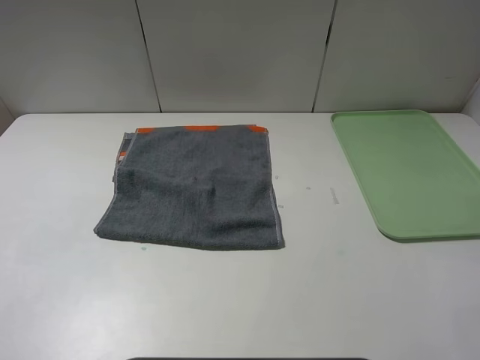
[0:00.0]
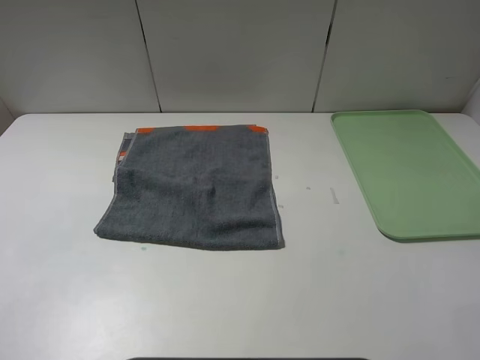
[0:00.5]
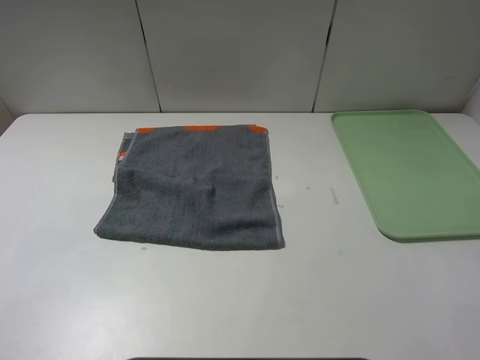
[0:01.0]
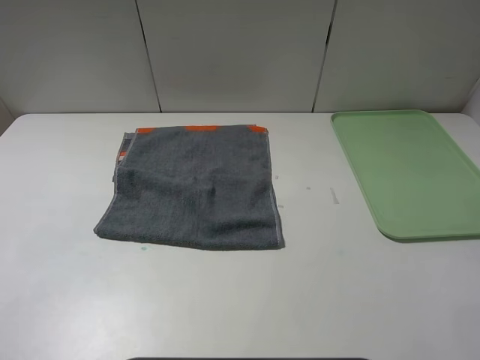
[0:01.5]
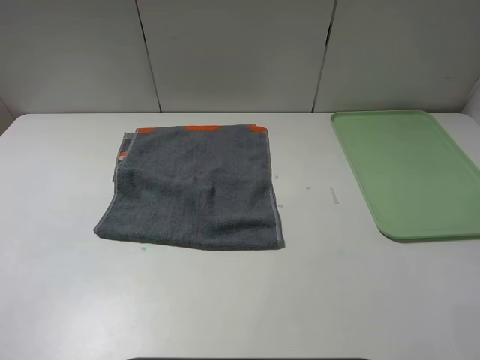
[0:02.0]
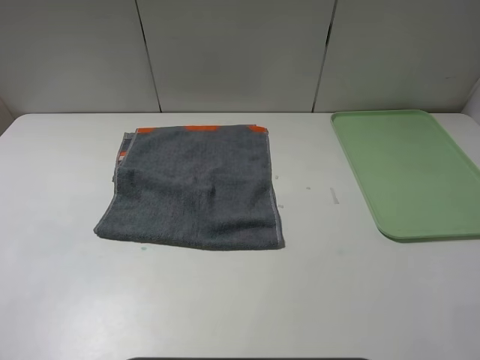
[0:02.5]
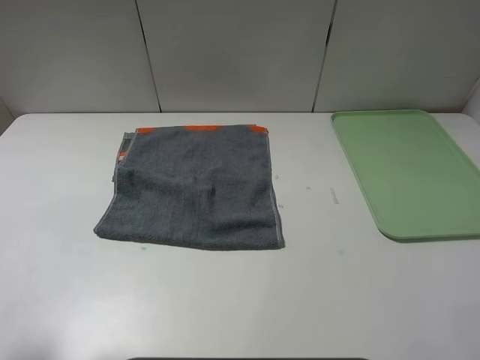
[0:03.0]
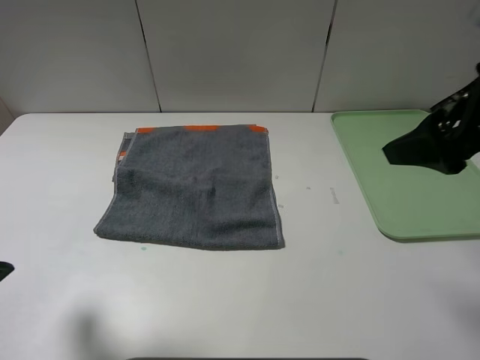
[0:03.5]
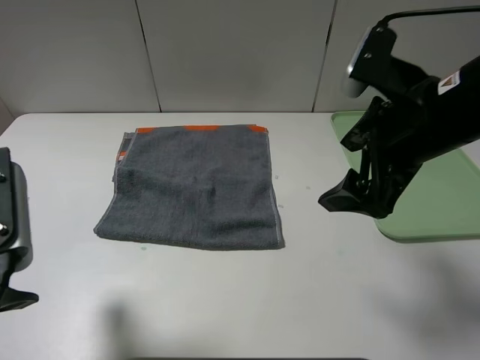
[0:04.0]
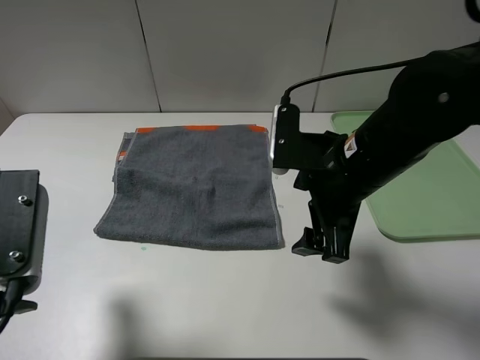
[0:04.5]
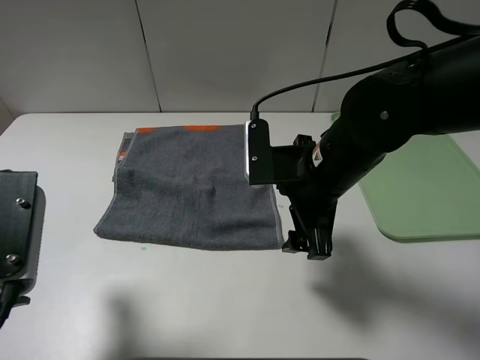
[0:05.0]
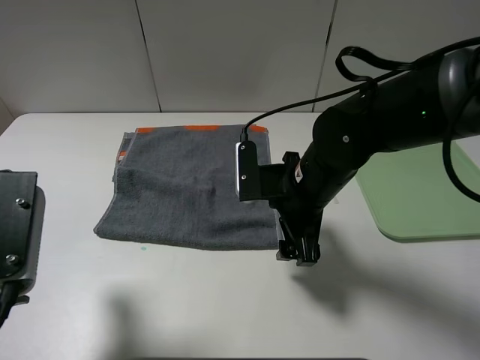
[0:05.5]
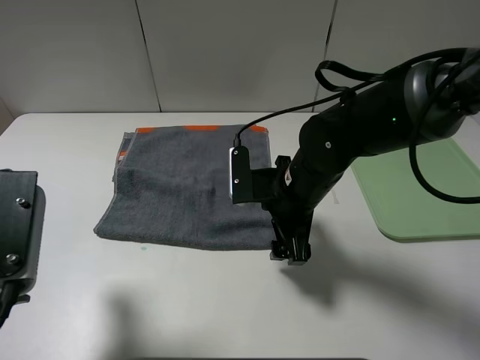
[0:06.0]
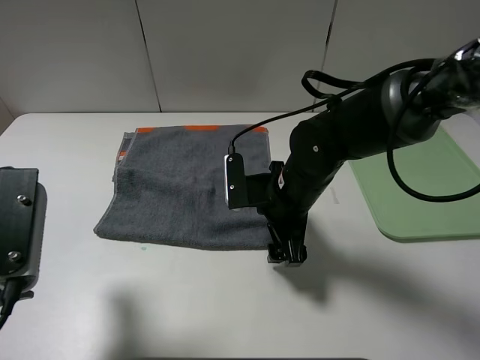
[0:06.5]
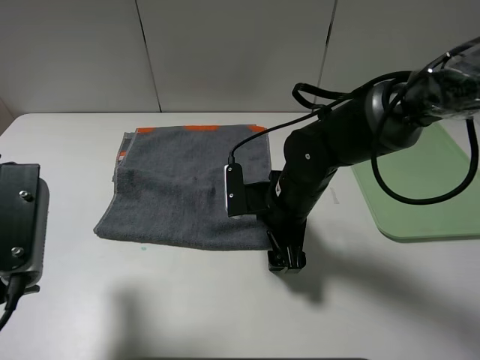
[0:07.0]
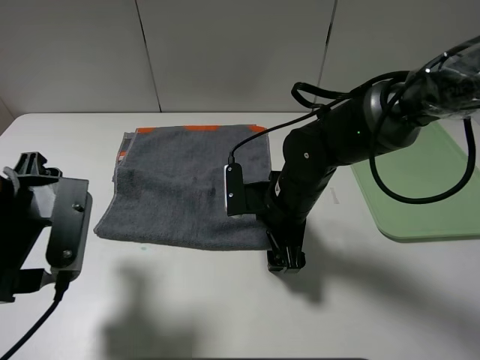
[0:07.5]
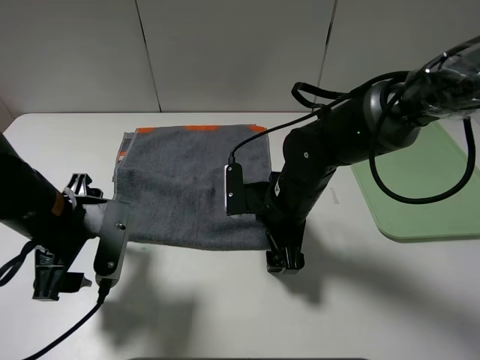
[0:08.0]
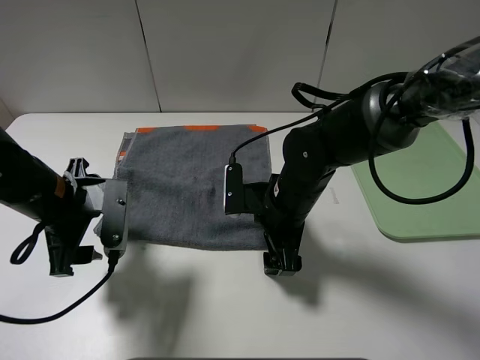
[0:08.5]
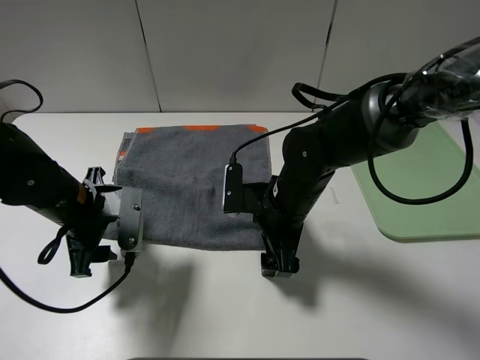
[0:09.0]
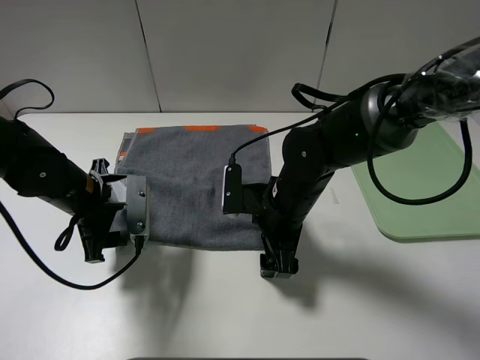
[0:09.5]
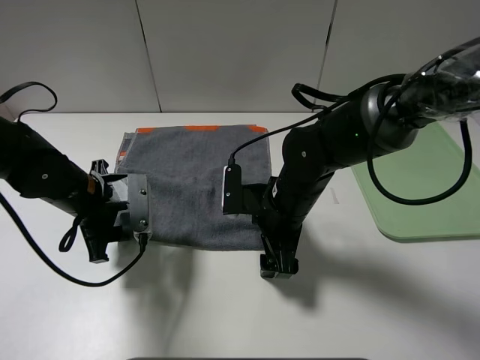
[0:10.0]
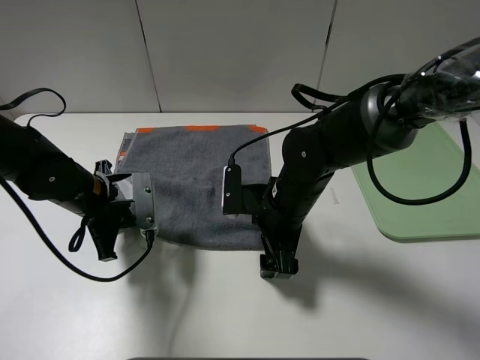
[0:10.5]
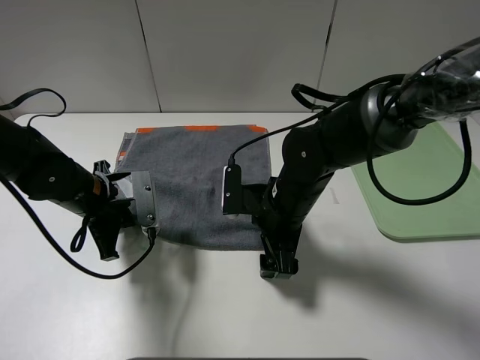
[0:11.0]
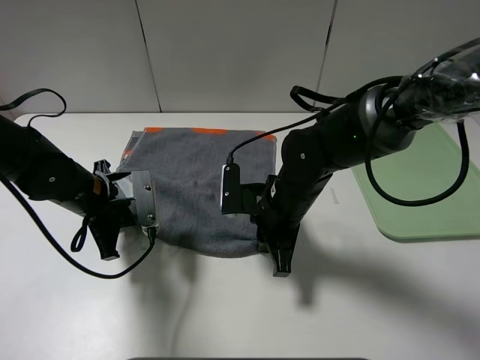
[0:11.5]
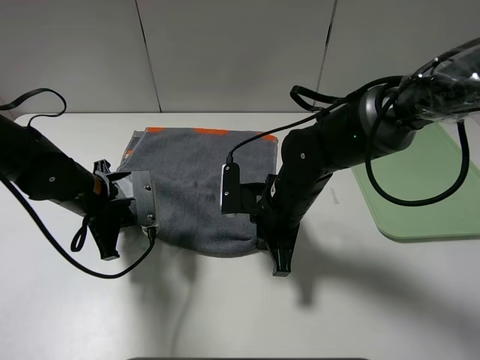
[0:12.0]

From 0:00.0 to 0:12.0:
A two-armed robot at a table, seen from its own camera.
From 0:00.0 to 0:02.0: Both grippers stay about where they are.
From 0:02.0 to 0:04.0: The right gripper moves forward and to the left, some 25 cm; the left gripper travels forward and to the right by approximately 15 cm.
From 0:04.0 to 0:06.0: The right gripper travels downward and to the left by roughly 15 cm.
From 0:06.0 to 0:08.0: The left gripper heads downward and forward, covering some 10 cm.
From 0:08.0 to 0:10.0: The left gripper travels forward by about 5 cm.
From 0:10.0 to 0:12.0: The left gripper closes up; the right gripper closes.

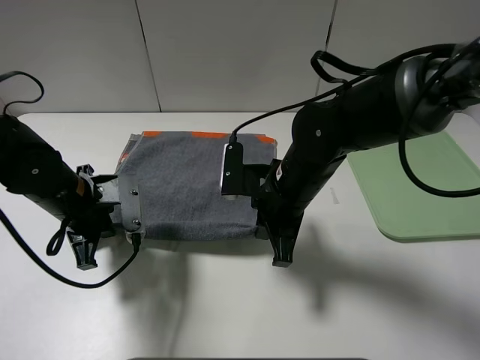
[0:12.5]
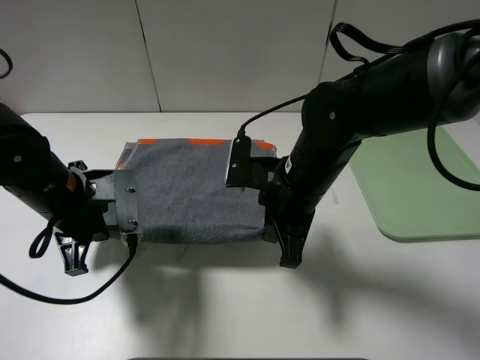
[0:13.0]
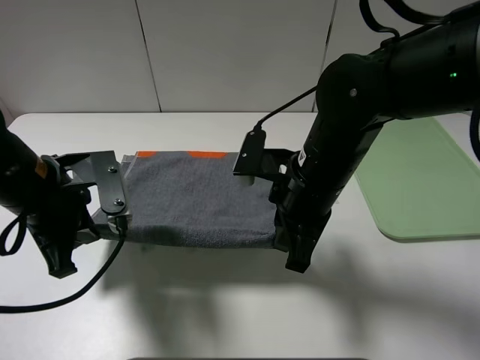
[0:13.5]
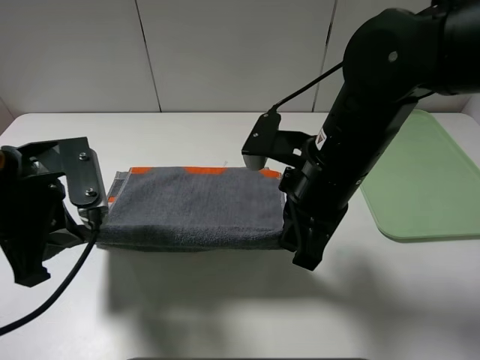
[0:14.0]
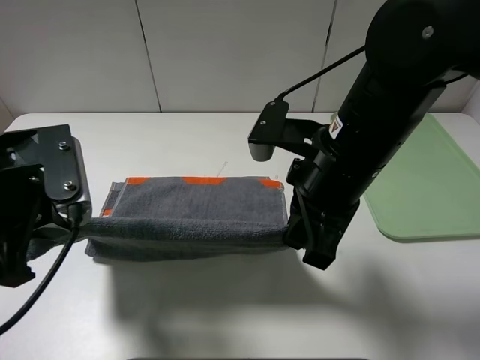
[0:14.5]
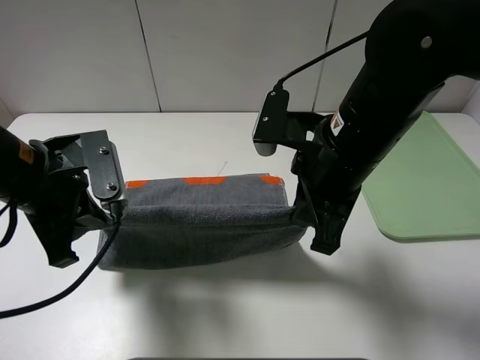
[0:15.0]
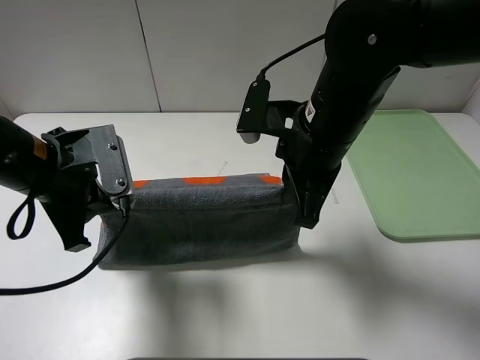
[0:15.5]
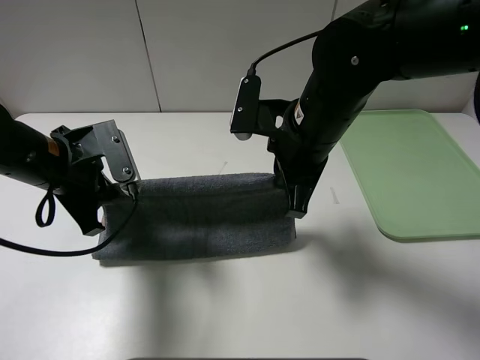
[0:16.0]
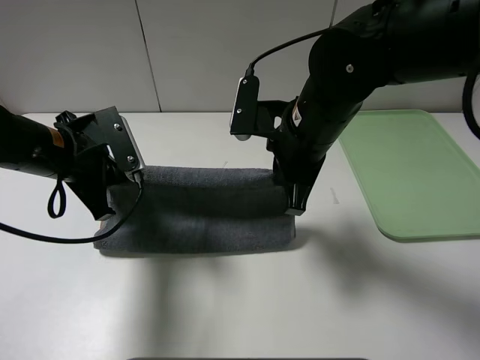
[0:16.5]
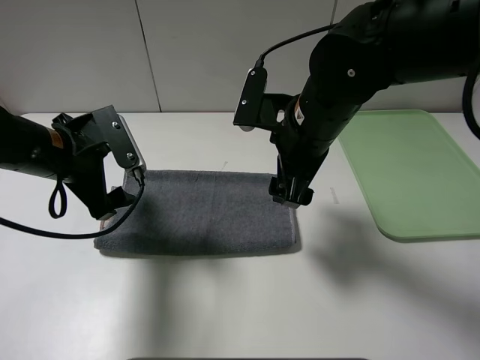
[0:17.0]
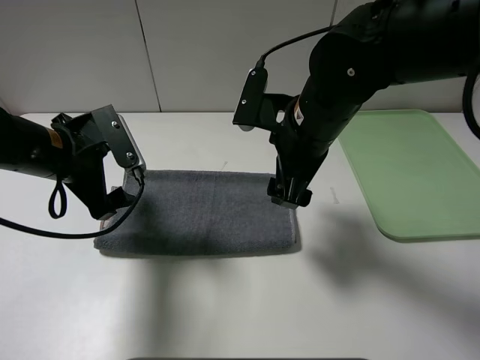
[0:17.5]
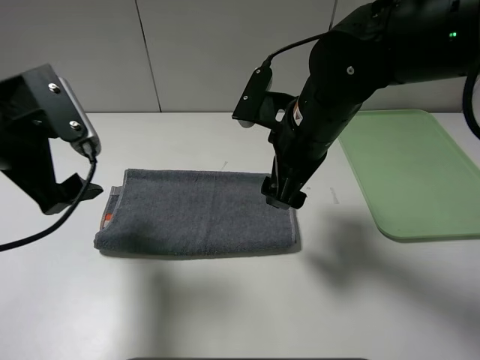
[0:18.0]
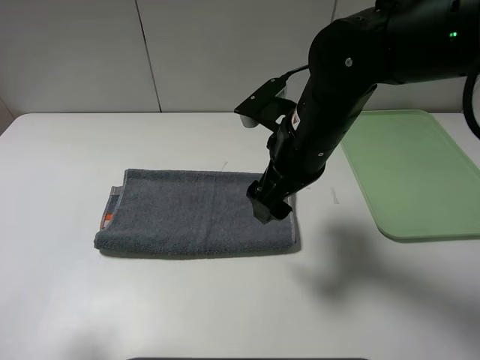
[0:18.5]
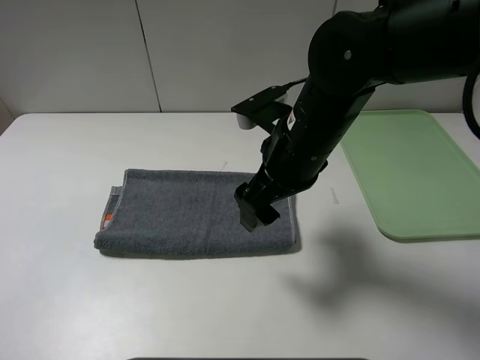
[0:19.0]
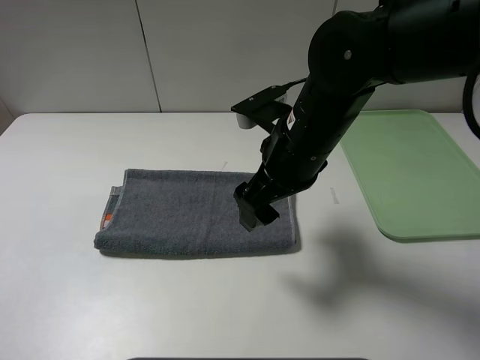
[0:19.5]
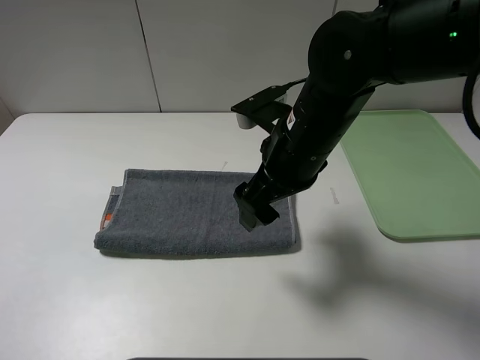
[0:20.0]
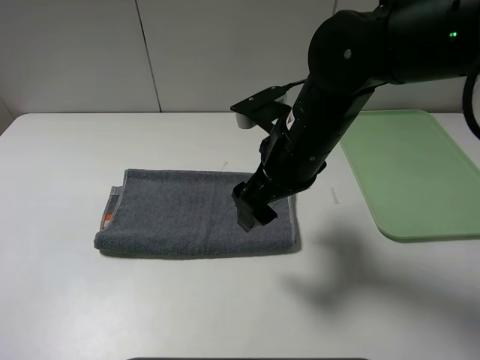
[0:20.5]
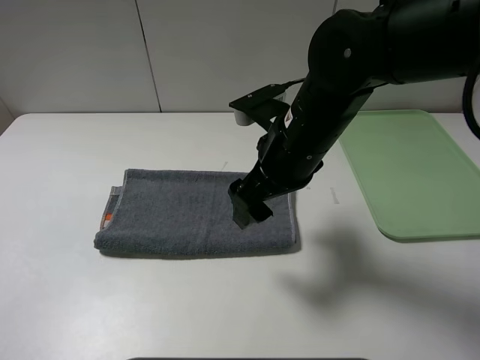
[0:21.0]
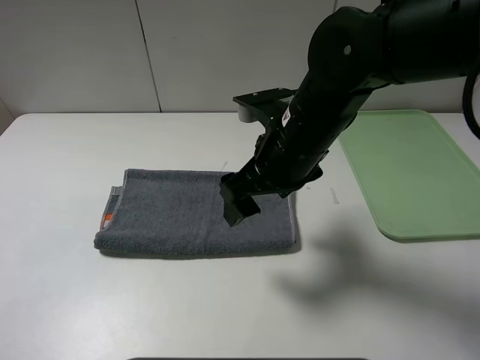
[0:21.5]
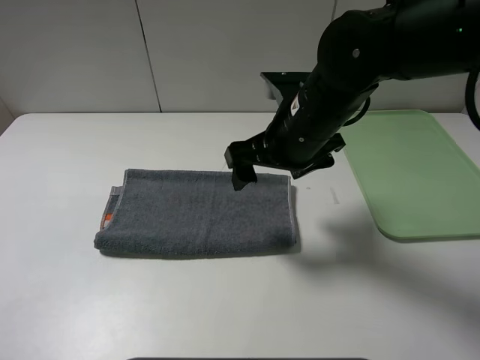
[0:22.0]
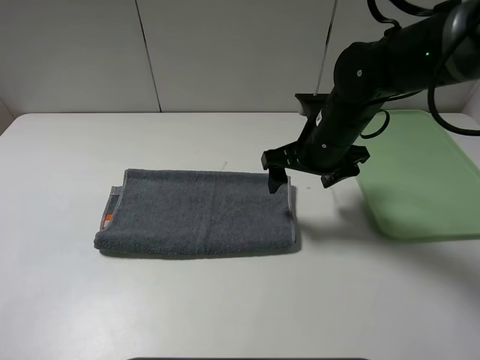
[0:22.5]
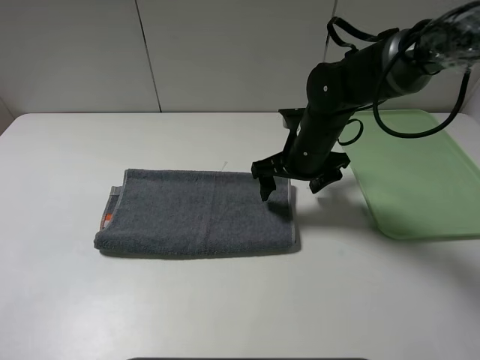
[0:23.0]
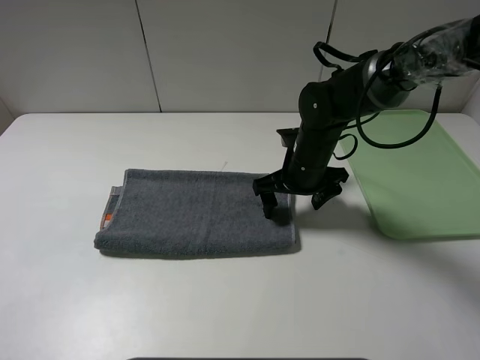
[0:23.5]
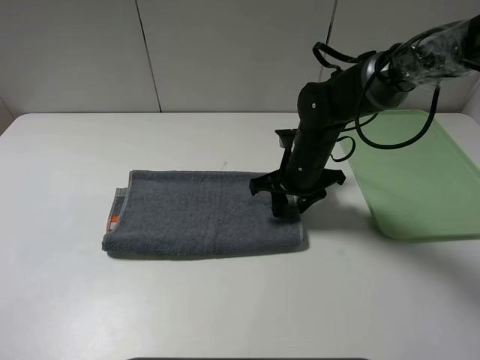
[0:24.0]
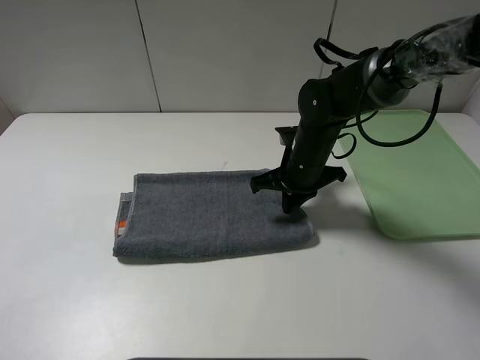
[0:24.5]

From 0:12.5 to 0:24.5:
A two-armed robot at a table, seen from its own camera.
Step, from 0:12.5 to 0:16.5: Fold the grey towel upwards.
From 0:12.5 to 0:14.5: The two grippers go about 10 cm upward and backward.
From 0:14.5 to 0:16.5: The left gripper is displaced forward and downward by approximately 10 cm. Meanwhile the right gripper heads forward, covering roughly 5 cm.
From 0:16.5 to 0:18.5: The left gripper shifts some 25 cm backward, upward and to the left, and opens, while the right gripper opens its fingers.
From 0:18.5 to 0:20.5: The left gripper heads backward, covering roughly 5 cm.
From 0:20.5 to 0:22.5: The right gripper heads forward and to the right, covering about 10 cm.
From 0:22.5 to 0:24.5: The right gripper heads downward, covering about 5 cm, and closes its fingers.

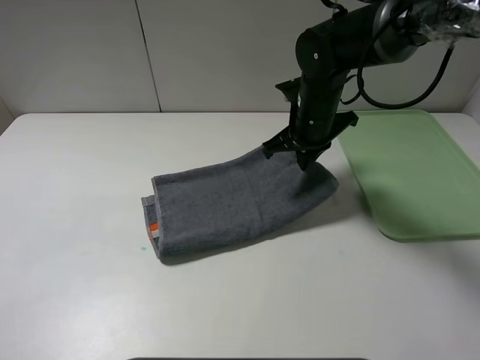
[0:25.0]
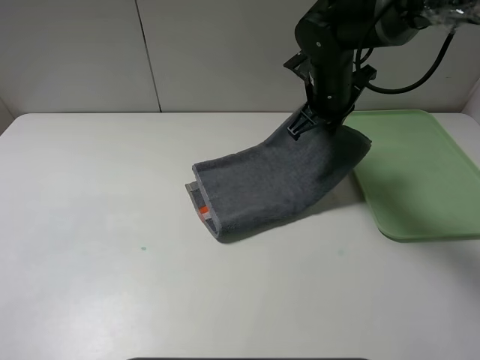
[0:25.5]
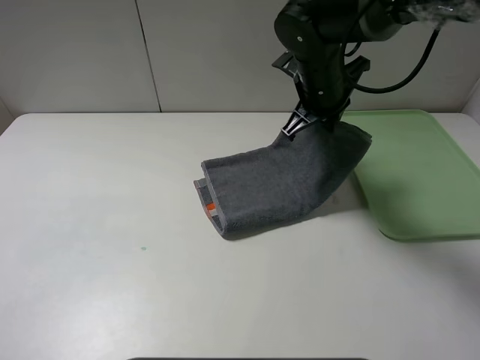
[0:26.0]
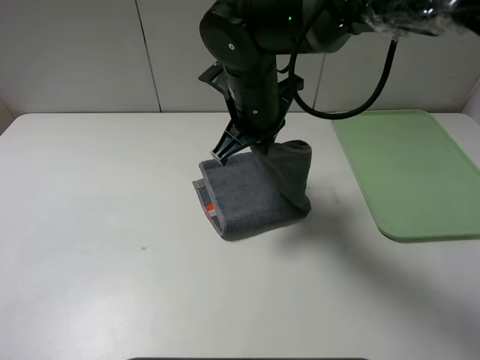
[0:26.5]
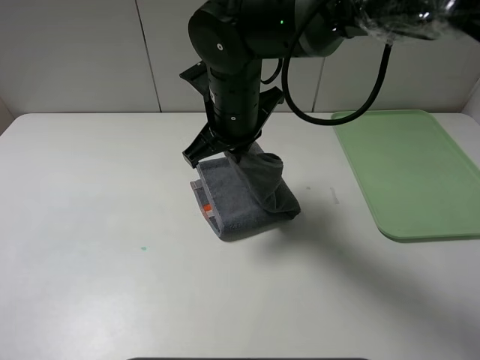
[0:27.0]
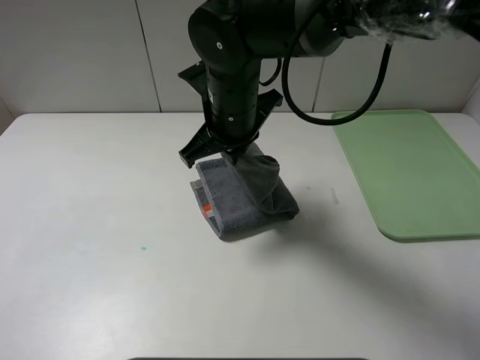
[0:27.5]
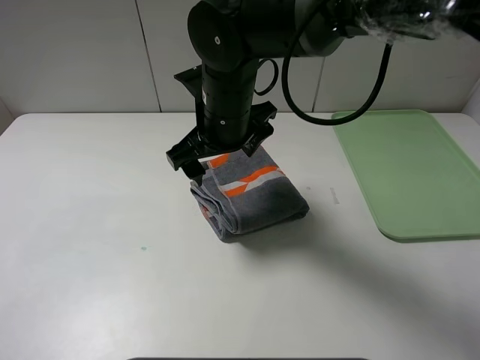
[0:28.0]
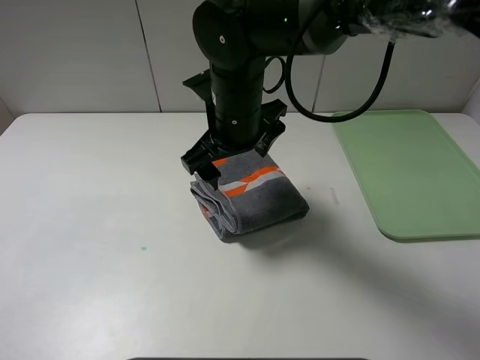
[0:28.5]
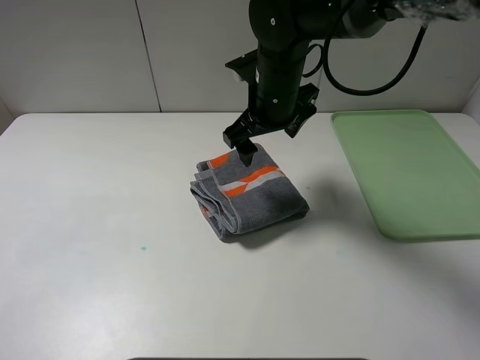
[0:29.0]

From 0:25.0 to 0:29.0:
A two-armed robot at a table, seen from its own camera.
Step, from 0:25.0 to 0:27.5: Fold the grey towel from right to left with right gripper.
From 0:25.0 to 0:27.0: The right gripper is displaced to the left and backward by approximately 15 cm.
From 0:27.0 to 0:29.0: The right gripper travels to the right by about 5 cm, and opens.
